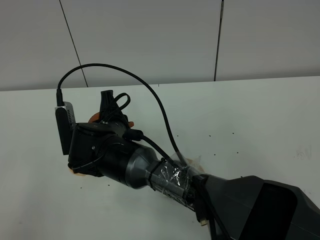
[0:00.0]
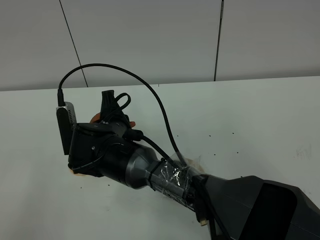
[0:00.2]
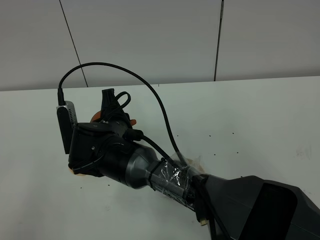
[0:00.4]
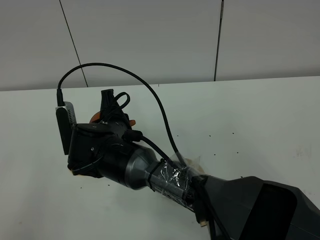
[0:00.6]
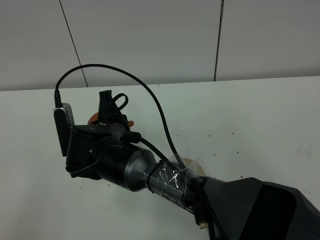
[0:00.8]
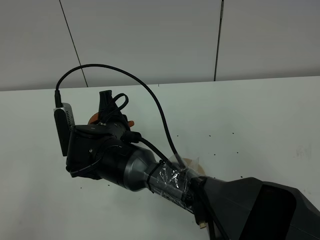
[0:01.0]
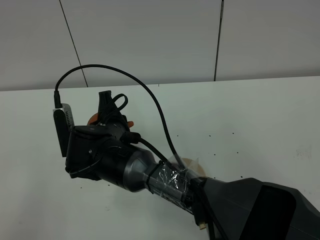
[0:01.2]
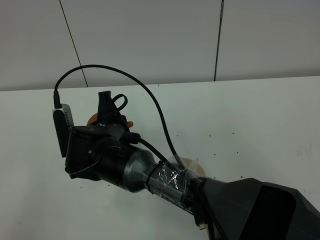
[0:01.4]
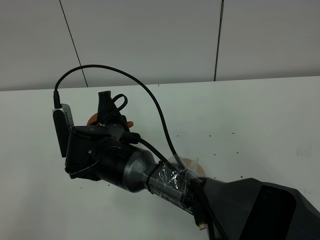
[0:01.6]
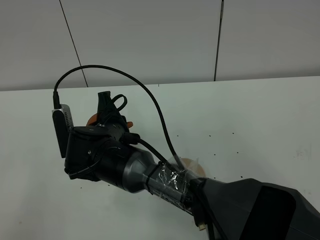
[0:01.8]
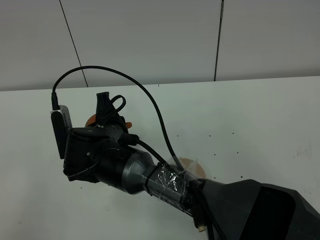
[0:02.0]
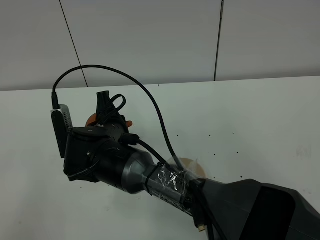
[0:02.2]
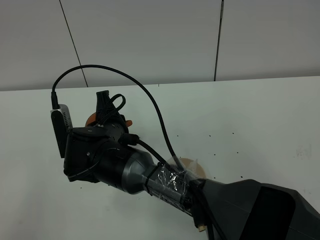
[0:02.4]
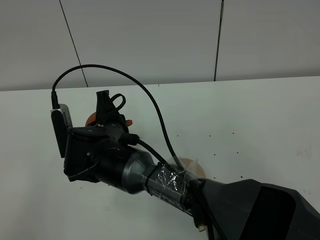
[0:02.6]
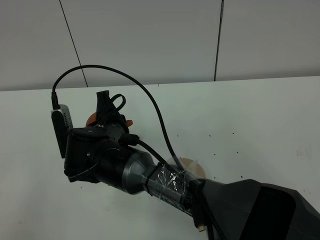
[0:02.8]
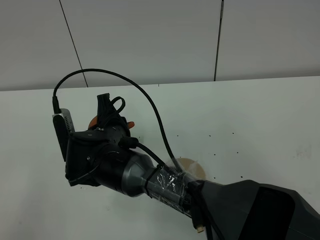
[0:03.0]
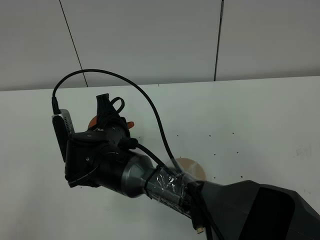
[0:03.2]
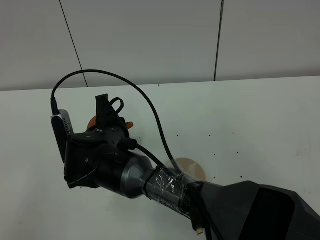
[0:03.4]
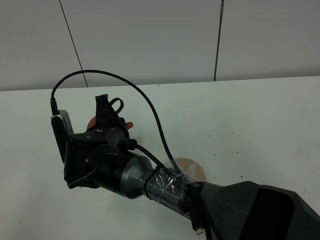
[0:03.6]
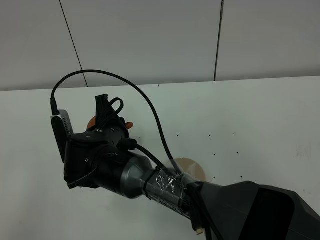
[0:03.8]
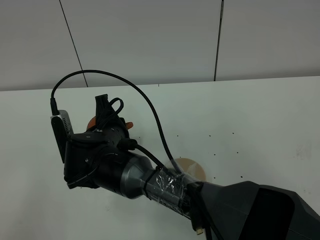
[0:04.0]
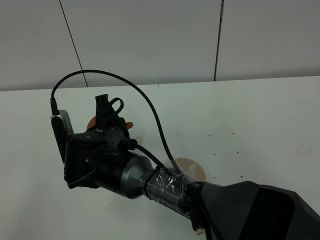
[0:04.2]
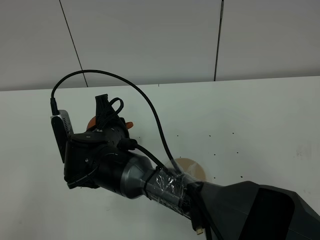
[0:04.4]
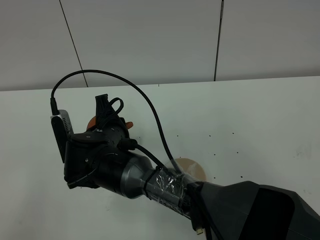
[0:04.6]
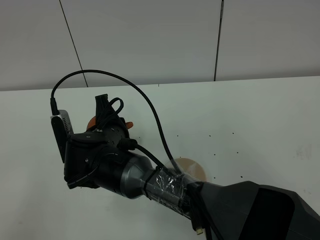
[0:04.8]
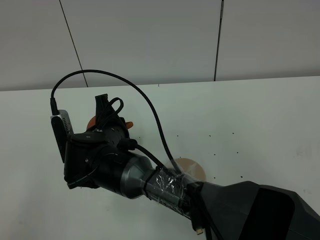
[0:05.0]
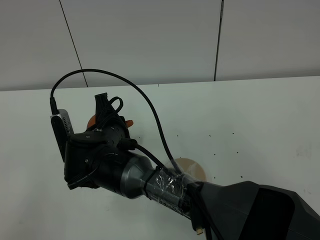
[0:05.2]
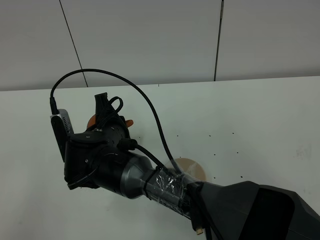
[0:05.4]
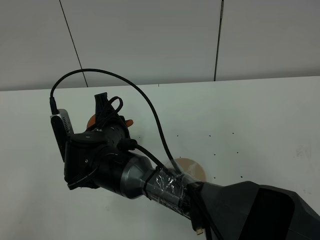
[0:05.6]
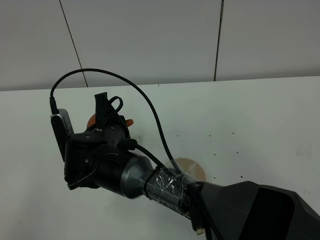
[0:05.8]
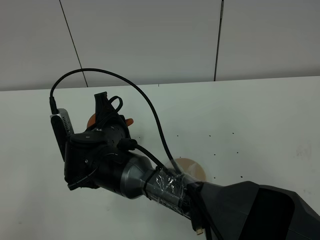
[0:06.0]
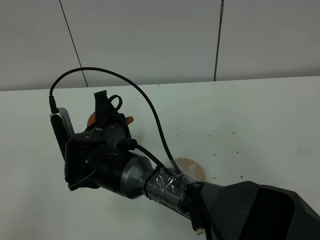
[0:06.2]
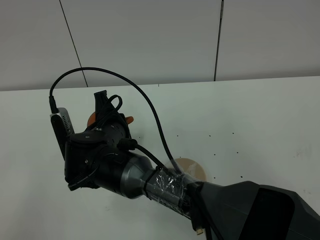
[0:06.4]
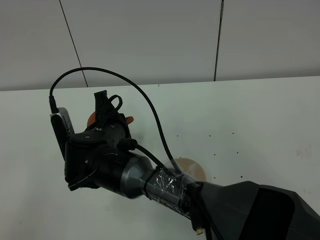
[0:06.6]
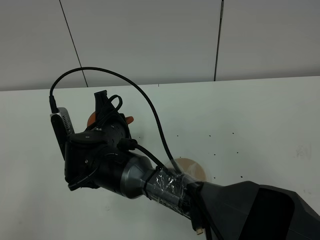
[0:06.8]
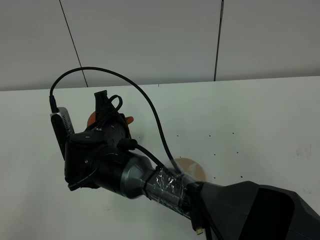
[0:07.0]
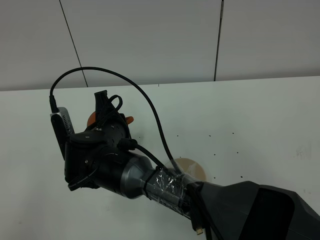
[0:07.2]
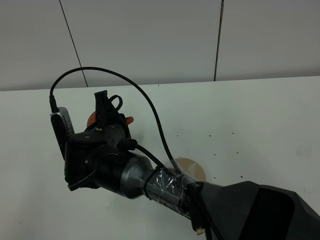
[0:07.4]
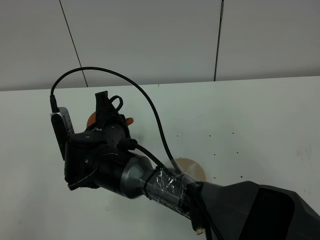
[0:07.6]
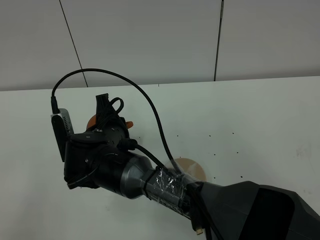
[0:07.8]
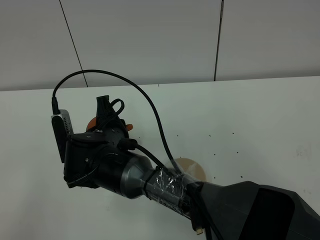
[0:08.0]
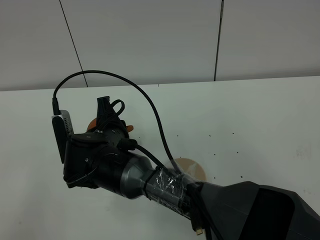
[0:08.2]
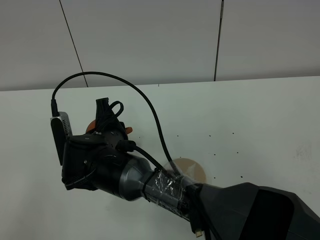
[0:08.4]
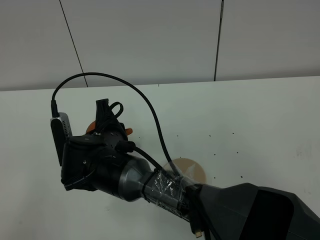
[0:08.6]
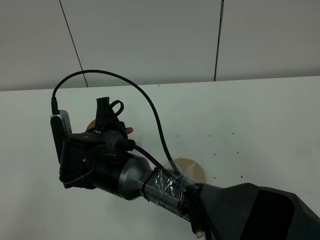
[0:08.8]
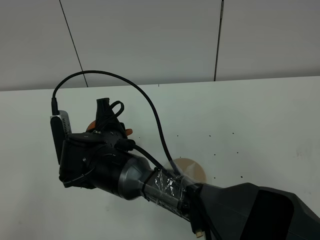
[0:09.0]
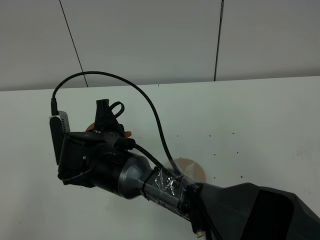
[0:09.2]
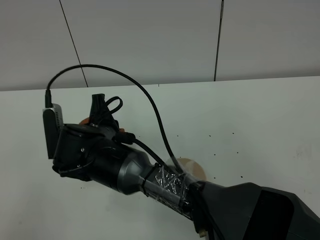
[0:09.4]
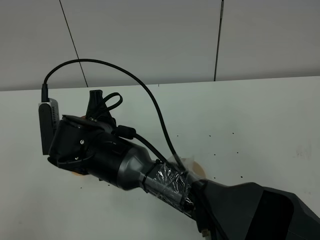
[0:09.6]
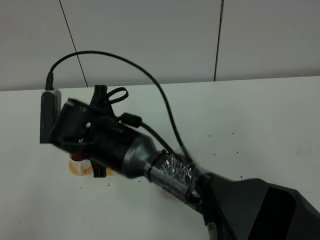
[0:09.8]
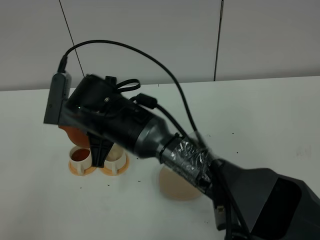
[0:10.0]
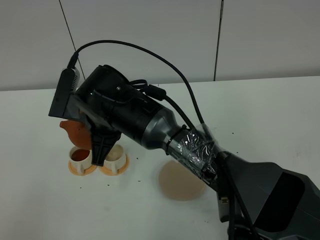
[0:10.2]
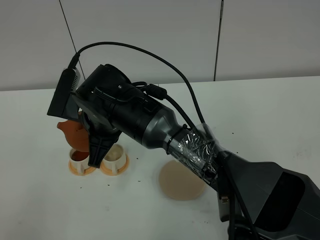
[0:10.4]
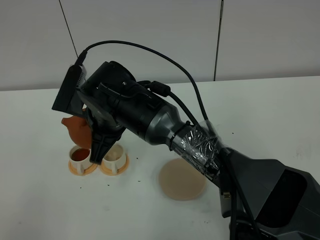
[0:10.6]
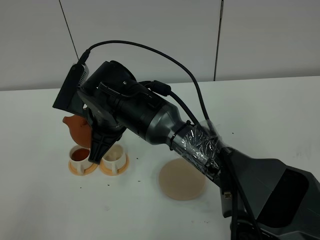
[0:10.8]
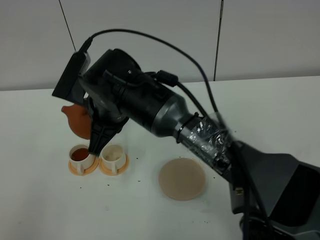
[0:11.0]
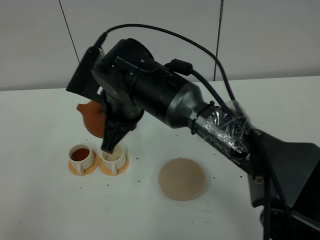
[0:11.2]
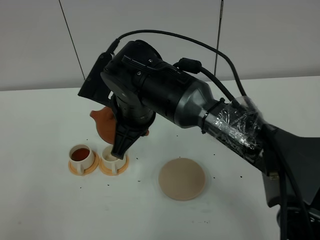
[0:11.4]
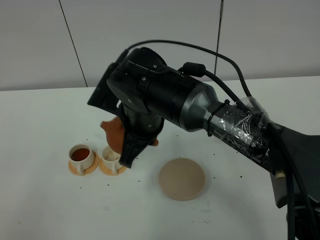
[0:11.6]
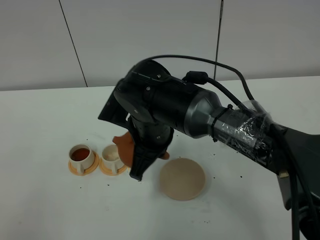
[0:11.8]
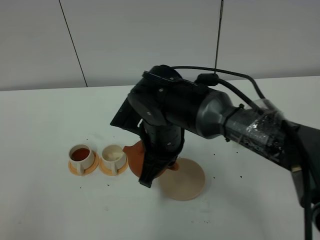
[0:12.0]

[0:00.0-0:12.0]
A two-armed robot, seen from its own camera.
Task of the whole recording: grasp the brown teapot and pour the tea into the two white teacups one by one, put the brown teapot back in its original place.
0:00.0 to 0:01.6: Both grippers stay about where they are.
0:01.6 to 0:04.4: Both grippers stay put.
0:04.4 to 0:07.6: Neither gripper changes place.
0:07.6 to 0:09.0: The grippers stay close to where they were, moving slightly.
0:09.0 to 0:10.4: The right gripper goes about 5 cm upward.
0:10.4 to 0:12.0: The right gripper shifts roughly 10 cm to the right.

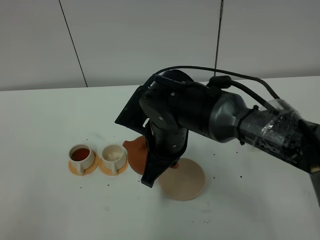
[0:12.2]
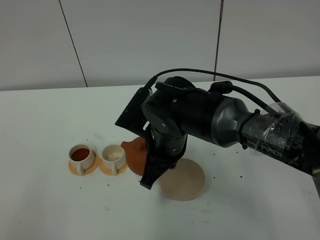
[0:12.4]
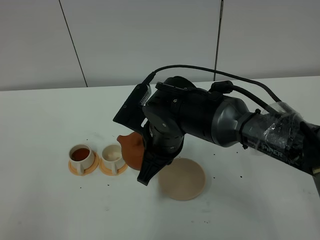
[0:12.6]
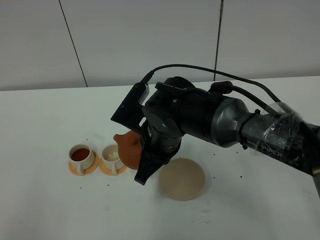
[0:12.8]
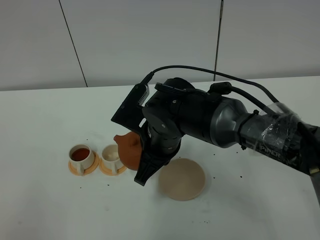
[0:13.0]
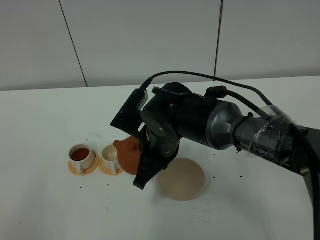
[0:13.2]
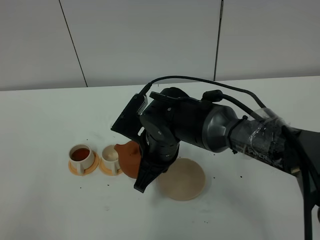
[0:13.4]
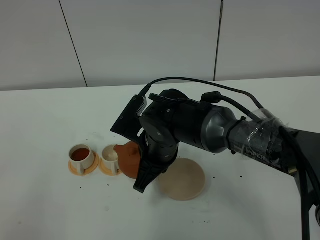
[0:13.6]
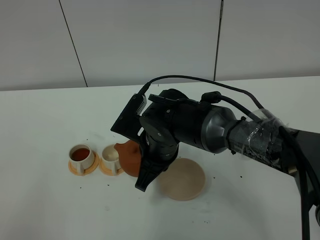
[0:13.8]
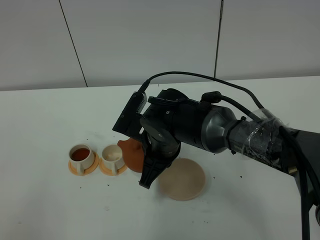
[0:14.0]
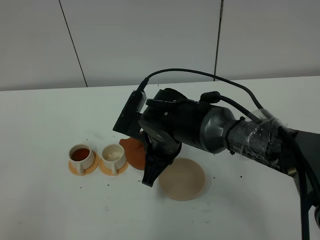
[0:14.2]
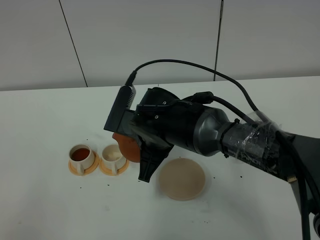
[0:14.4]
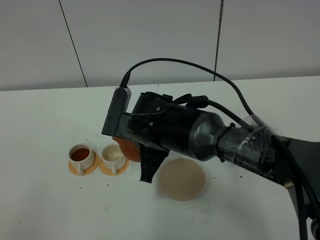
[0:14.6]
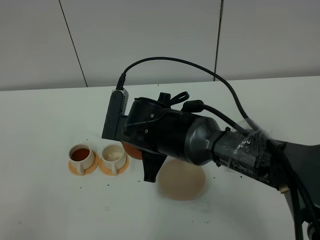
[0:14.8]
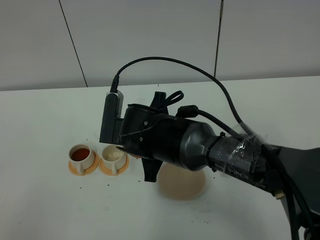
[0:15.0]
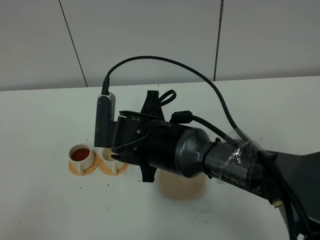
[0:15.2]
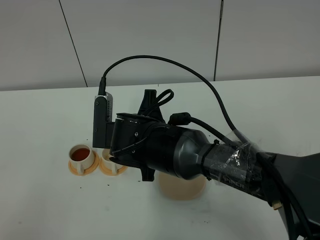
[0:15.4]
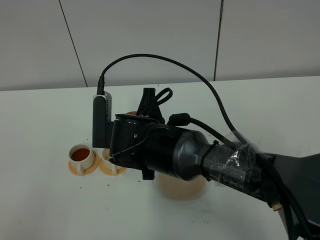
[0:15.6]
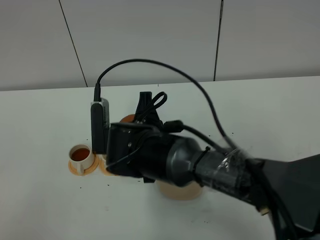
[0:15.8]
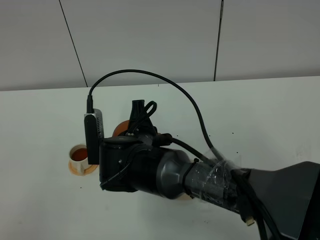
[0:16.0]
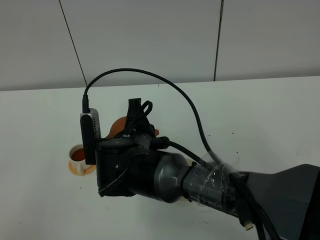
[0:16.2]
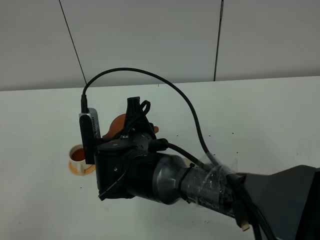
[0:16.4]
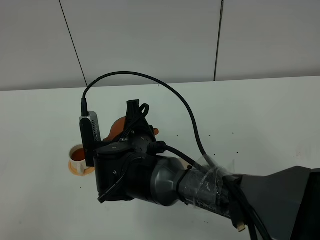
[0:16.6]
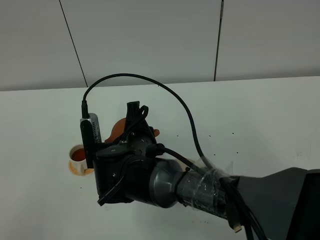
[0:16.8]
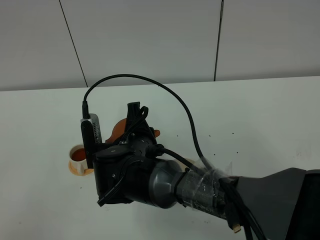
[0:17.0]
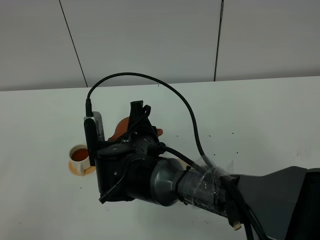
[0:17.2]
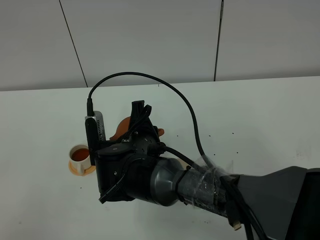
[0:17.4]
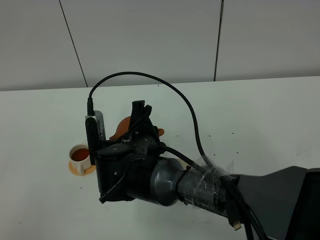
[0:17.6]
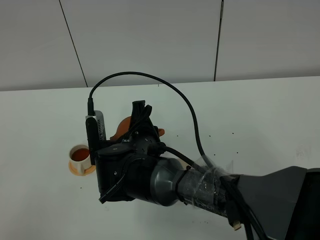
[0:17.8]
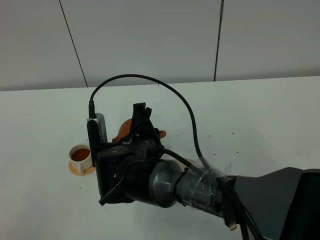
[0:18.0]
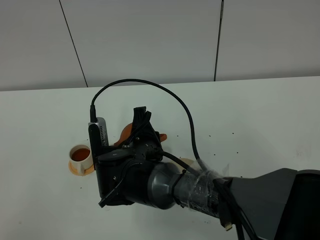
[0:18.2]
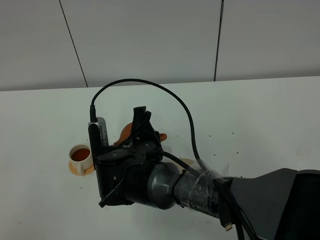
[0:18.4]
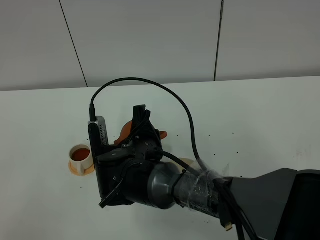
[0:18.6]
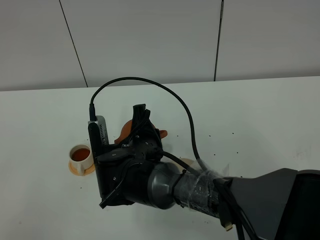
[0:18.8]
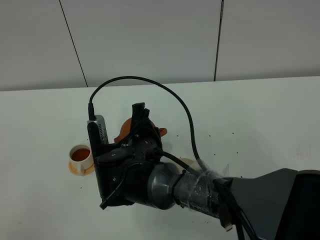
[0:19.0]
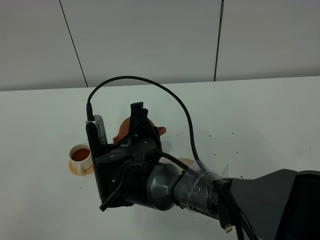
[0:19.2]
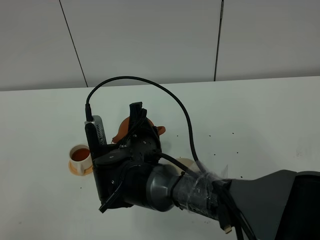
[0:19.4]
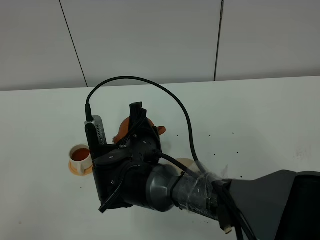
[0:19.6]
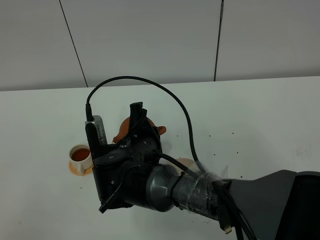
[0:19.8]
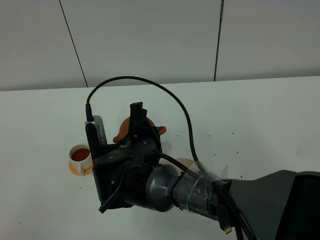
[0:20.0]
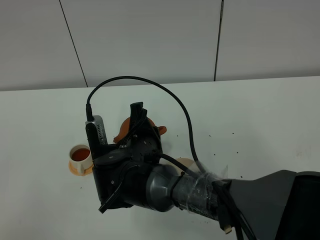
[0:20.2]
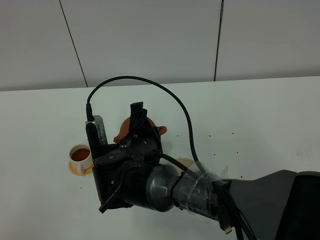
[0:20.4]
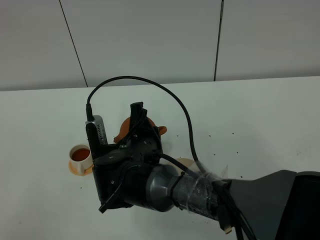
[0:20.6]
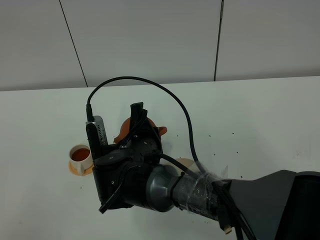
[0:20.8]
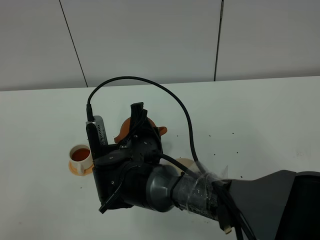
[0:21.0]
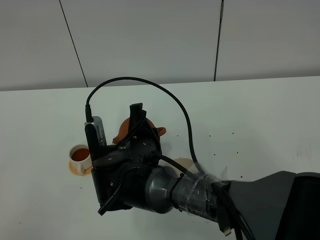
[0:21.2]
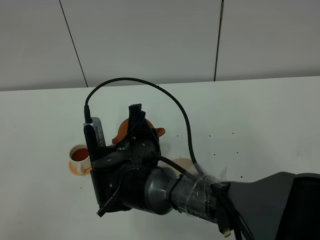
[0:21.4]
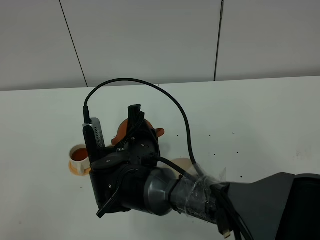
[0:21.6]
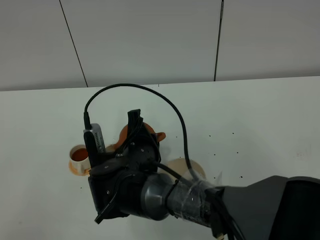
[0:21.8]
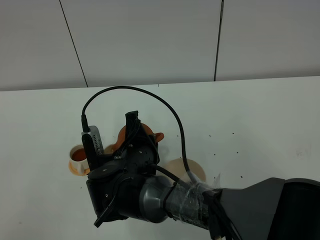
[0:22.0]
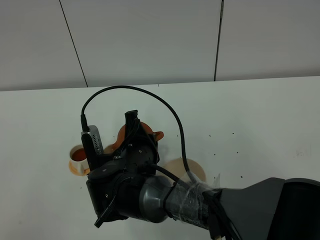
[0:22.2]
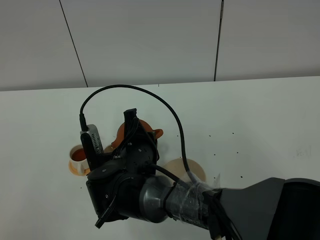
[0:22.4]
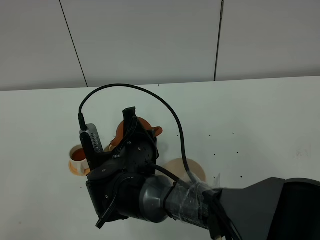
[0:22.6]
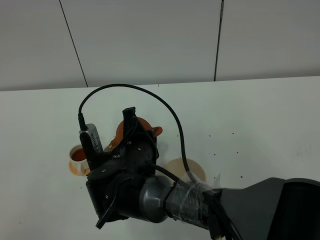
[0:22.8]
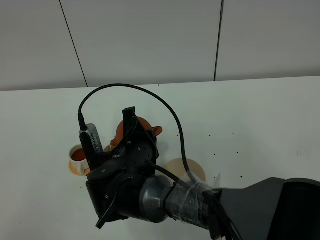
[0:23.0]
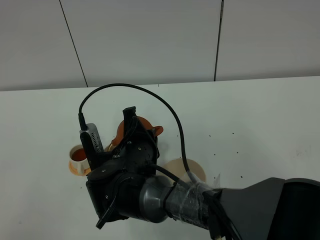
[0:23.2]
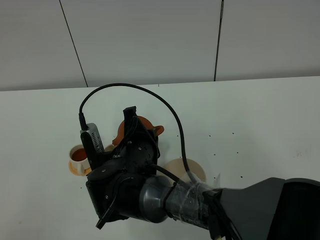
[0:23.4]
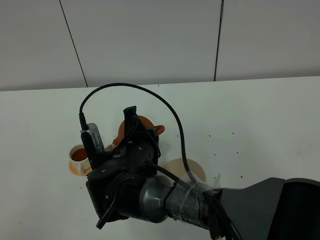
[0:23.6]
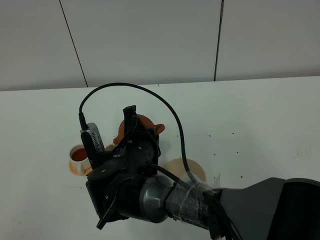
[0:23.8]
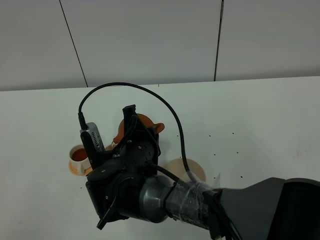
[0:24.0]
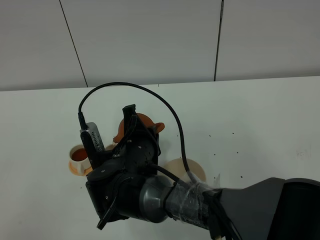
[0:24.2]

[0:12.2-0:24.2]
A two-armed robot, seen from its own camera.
Task of the whole recording: grasp the brown teapot and pour the tea into the two white teacups one by one, put the brown teapot back in its original place.
0:12.2 to 0:13.8: The grippers make only small movements.
0:16.6 to 0:18.2: The grippers stay close to where they were, moving slightly.
0:18.2 to 0:21.2: Neither gripper changes place.
0:21.2 to 0:22.6: The grippers move only a little.
0:22.6 to 0:24.2: The two grippers keep their place.
